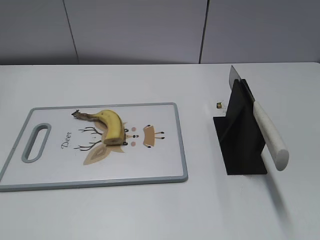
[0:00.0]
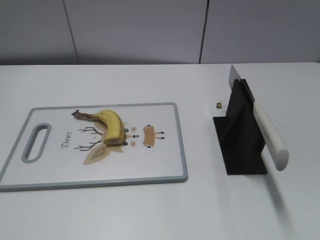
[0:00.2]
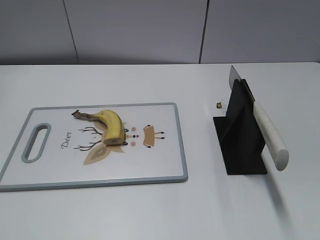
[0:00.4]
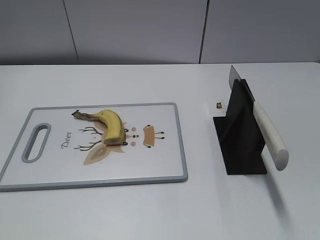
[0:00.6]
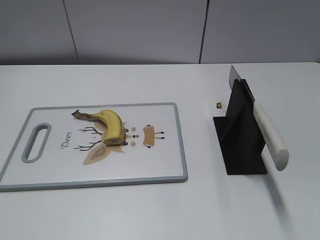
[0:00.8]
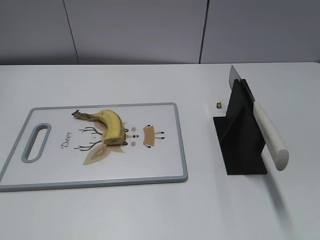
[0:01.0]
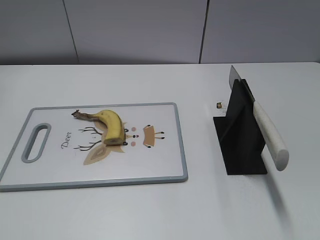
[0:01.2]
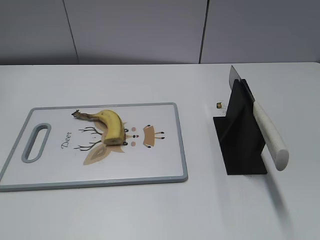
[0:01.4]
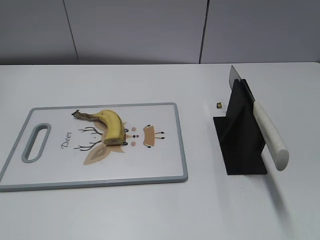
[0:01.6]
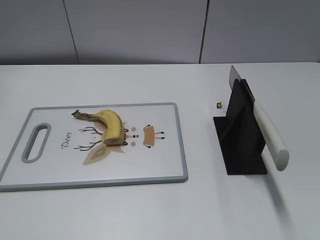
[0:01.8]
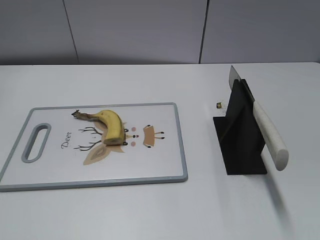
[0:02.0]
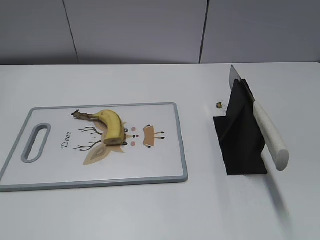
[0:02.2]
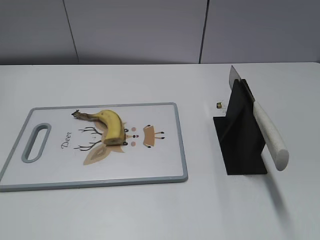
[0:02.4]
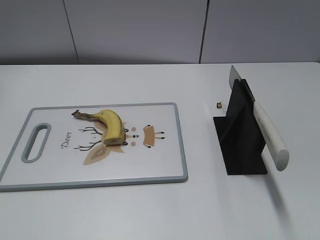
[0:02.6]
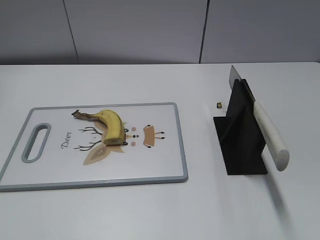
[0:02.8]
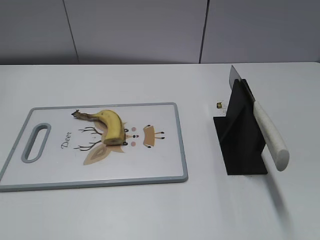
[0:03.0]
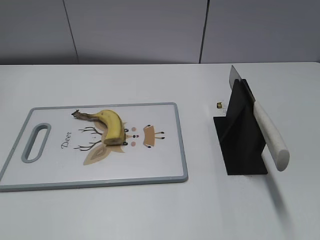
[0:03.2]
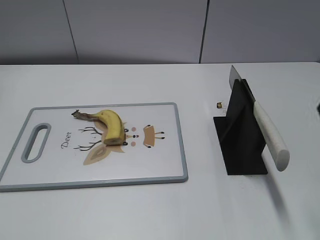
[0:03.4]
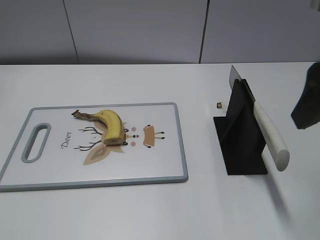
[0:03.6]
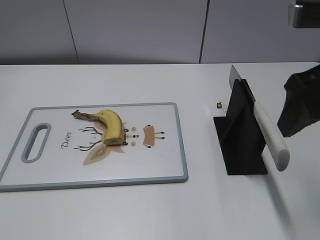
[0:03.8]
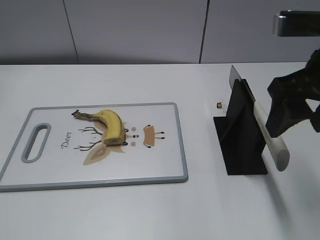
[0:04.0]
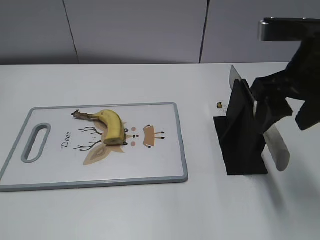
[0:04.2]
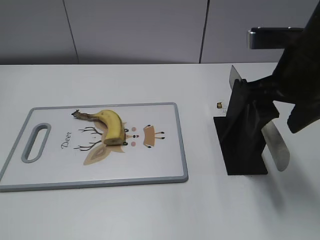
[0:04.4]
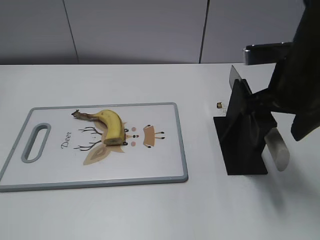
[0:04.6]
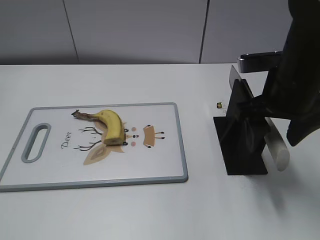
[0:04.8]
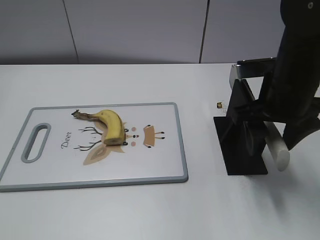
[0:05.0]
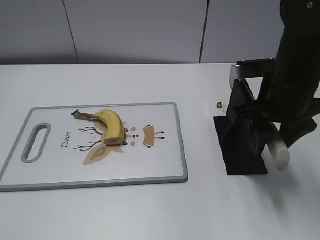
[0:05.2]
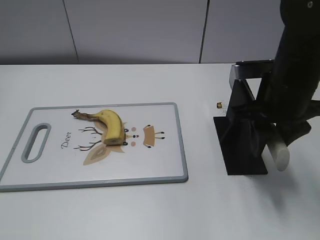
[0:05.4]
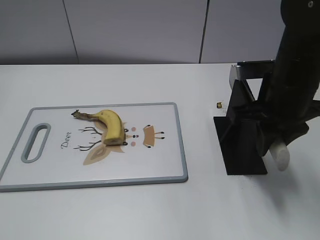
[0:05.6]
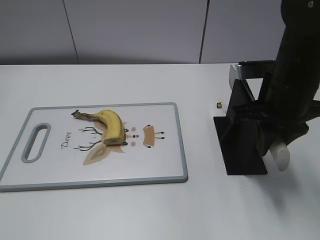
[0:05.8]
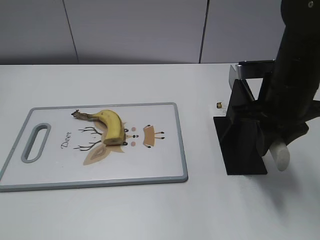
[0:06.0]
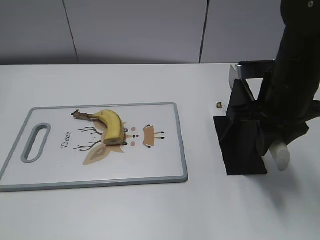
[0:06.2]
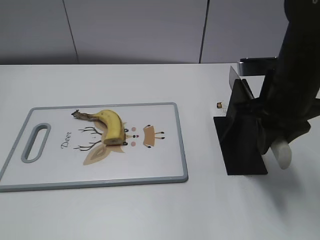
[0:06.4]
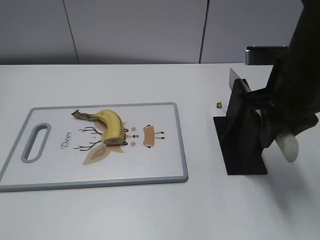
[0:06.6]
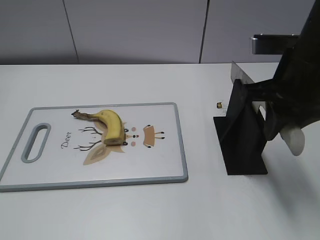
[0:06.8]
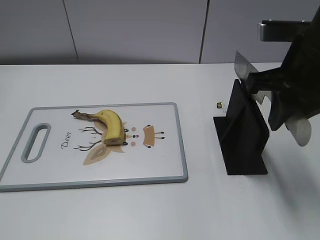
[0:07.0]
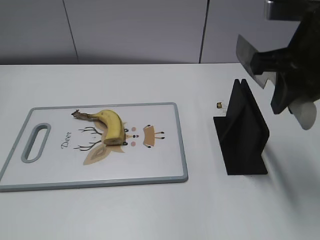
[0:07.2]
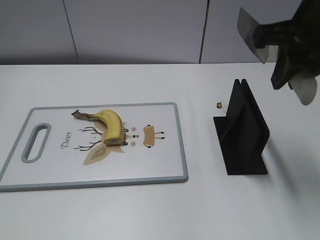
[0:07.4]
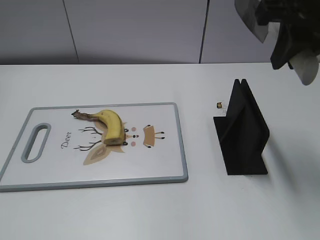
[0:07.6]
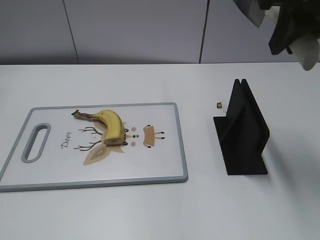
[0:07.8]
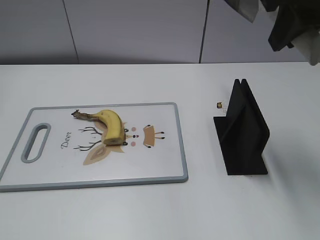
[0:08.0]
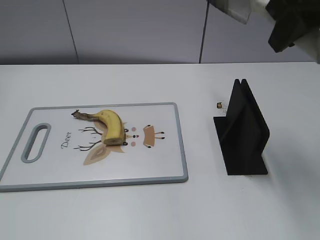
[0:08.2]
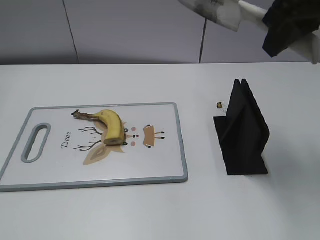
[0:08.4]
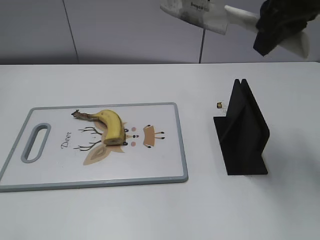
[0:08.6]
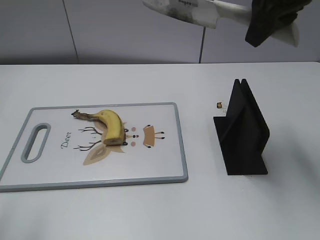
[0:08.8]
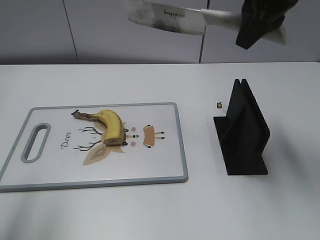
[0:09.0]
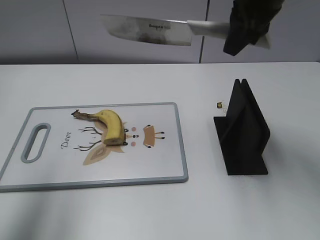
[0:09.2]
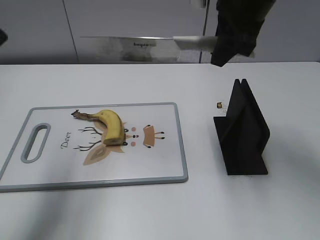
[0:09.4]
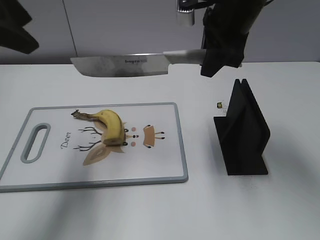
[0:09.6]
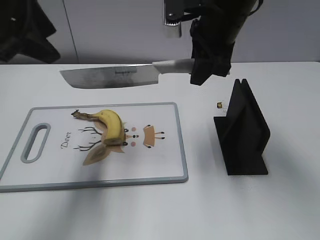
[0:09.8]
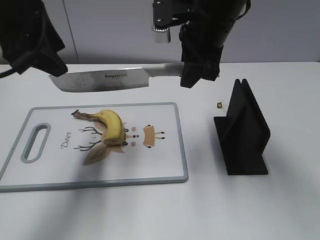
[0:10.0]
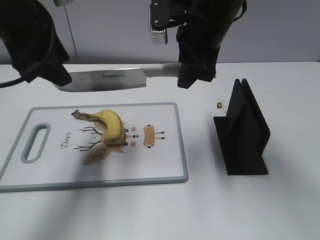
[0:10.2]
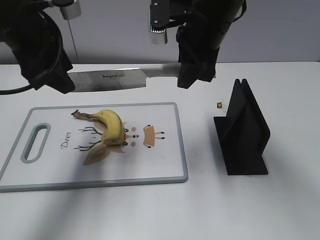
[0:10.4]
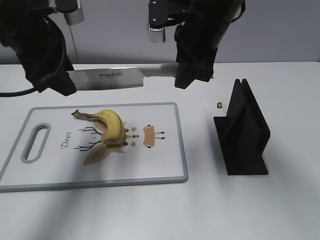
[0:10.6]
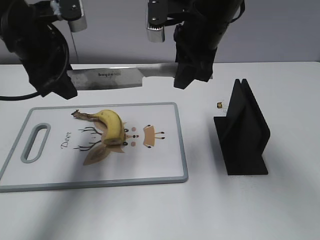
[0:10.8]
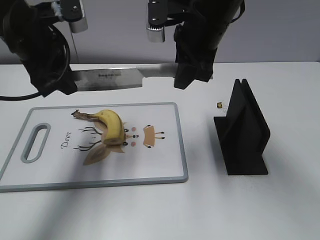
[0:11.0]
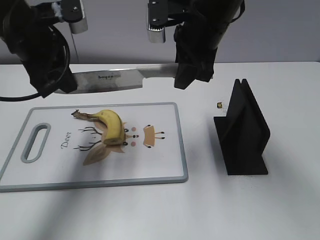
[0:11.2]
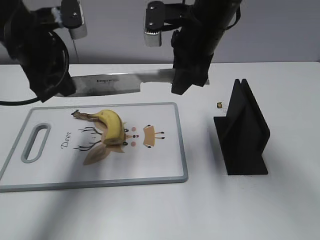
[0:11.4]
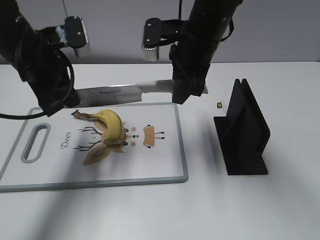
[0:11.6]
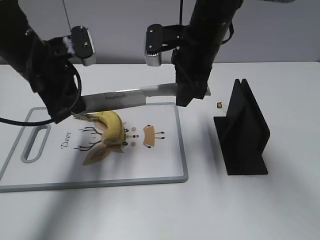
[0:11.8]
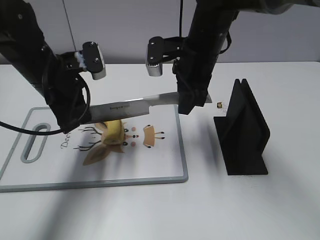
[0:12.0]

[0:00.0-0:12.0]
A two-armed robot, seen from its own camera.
Task of the whole recording: cut banana.
Step, 0:00.0 to 0:07.2: Grab the knife handle with your right hand.
0:03.0 to 0:04.4: The right gripper travels forward, to the left and downward by roughly 20 cm.
0:04.4 to 0:06.0: The right gripper ends up about 5 cm from where it was, and closes up.
0:06.0 to 0:07.6: The right gripper travels upward by some 15 cm.
0:07.6 to 0:09.0: The right gripper travels forward by some 5 cm. The left gripper moves forward and upward, approximately 20 cm.
0:09.0 to 0:10.4: The left gripper moves forward, to the right and downward, about 20 cm, while the right gripper heads downward and to the left, covering about 10 cm.
0:10.4 to 0:12.0: The right gripper moves downward, roughly 5 cm. The left gripper moves downward, about 10 cm, and closes.

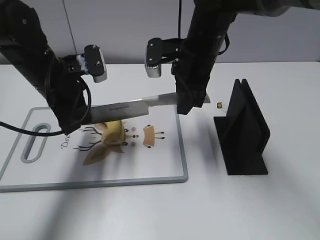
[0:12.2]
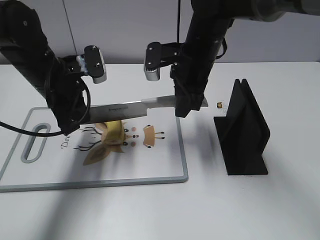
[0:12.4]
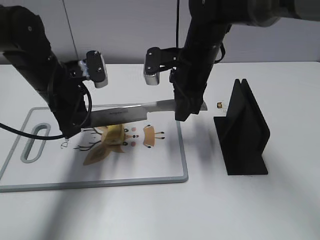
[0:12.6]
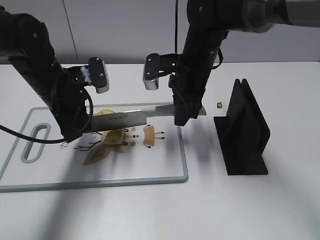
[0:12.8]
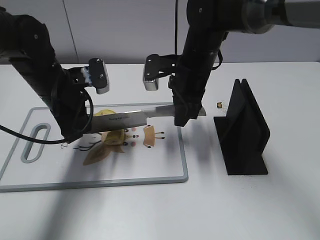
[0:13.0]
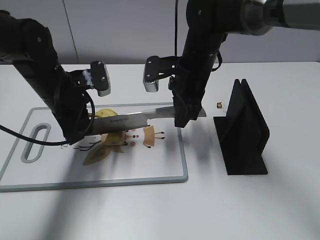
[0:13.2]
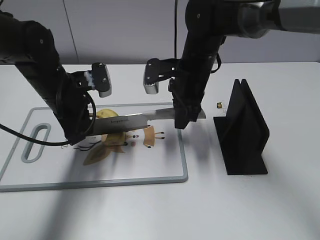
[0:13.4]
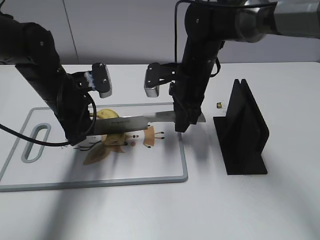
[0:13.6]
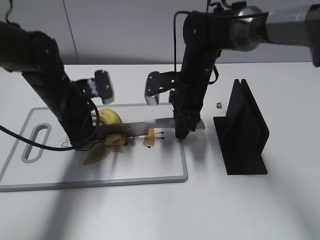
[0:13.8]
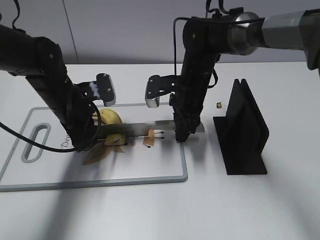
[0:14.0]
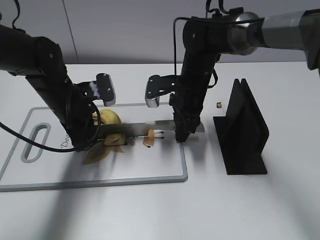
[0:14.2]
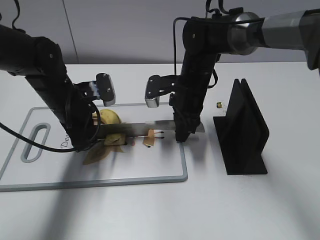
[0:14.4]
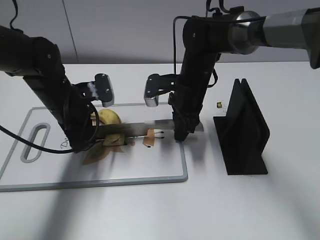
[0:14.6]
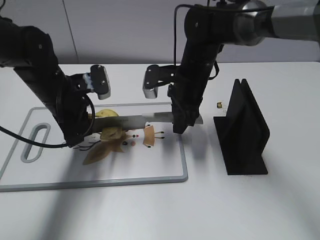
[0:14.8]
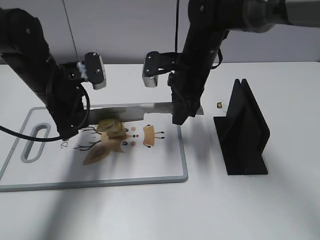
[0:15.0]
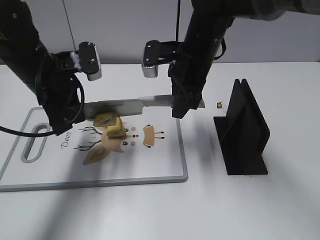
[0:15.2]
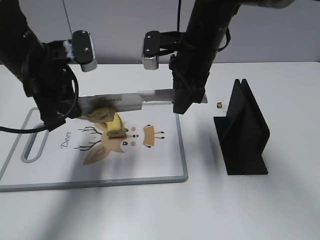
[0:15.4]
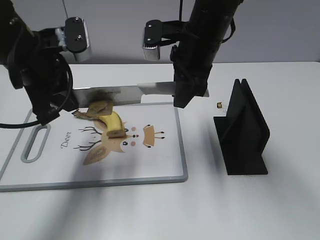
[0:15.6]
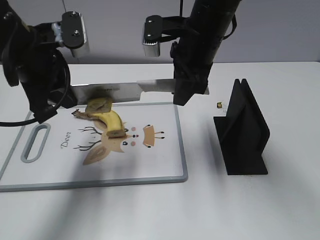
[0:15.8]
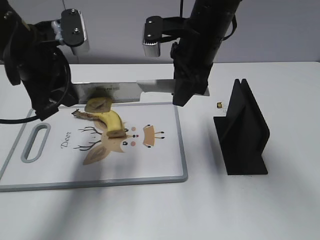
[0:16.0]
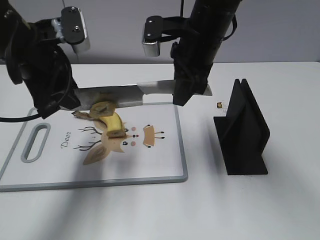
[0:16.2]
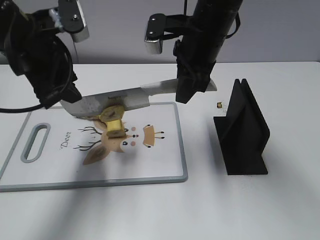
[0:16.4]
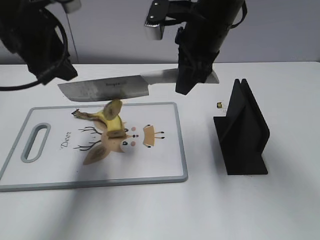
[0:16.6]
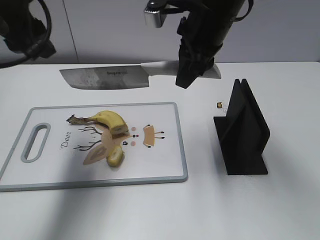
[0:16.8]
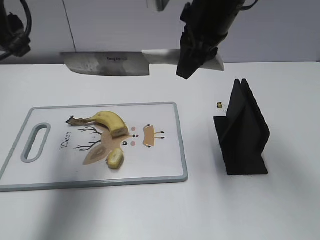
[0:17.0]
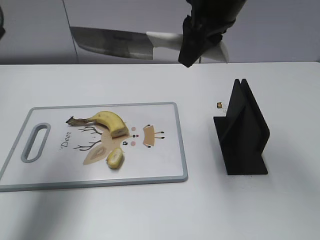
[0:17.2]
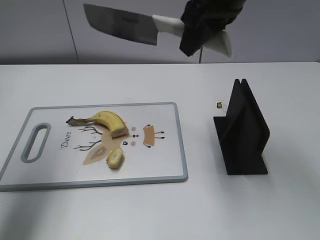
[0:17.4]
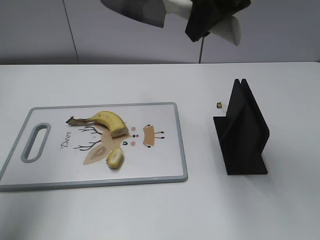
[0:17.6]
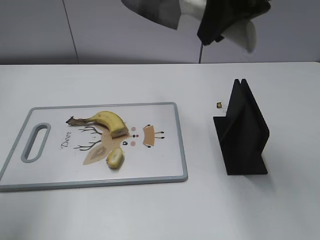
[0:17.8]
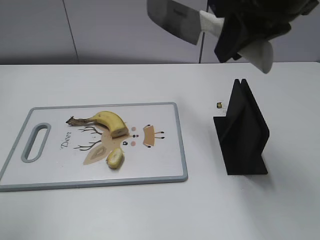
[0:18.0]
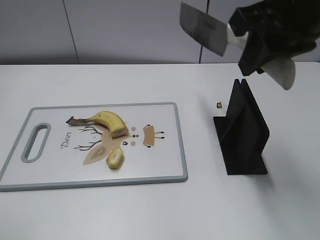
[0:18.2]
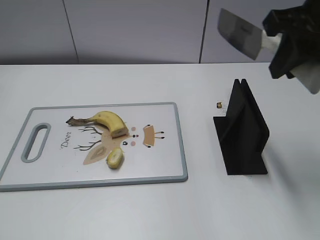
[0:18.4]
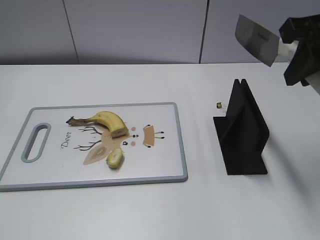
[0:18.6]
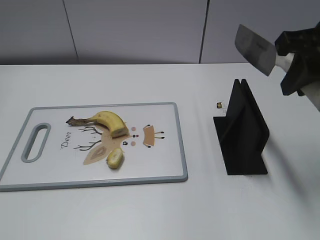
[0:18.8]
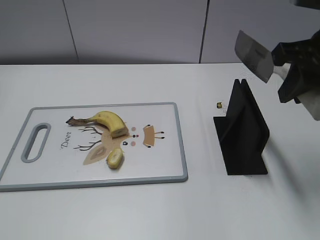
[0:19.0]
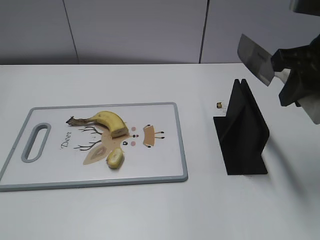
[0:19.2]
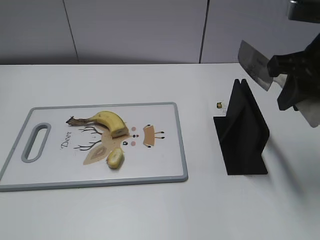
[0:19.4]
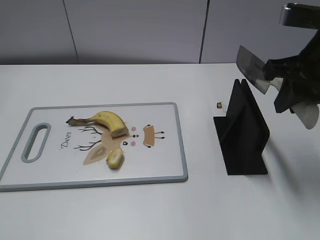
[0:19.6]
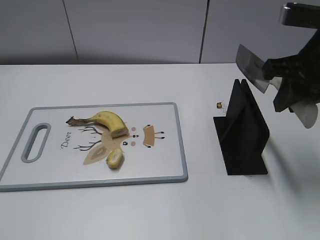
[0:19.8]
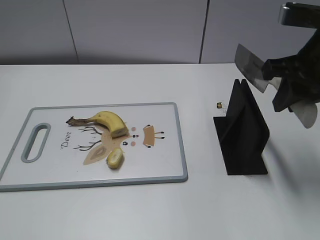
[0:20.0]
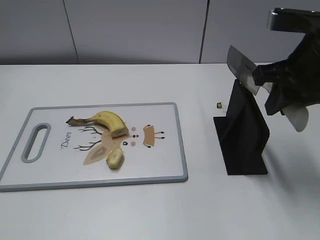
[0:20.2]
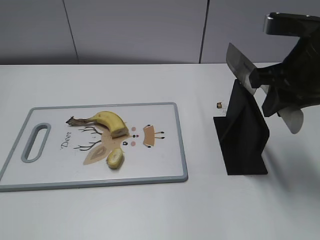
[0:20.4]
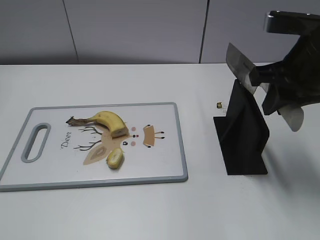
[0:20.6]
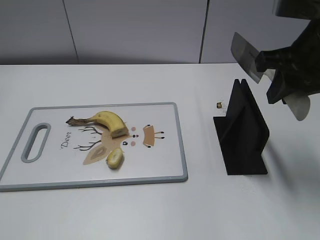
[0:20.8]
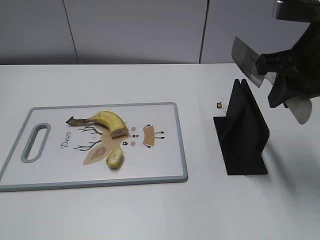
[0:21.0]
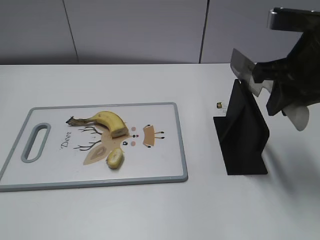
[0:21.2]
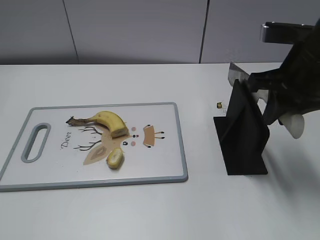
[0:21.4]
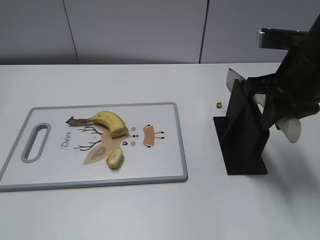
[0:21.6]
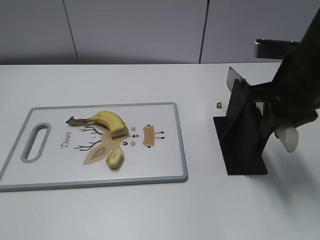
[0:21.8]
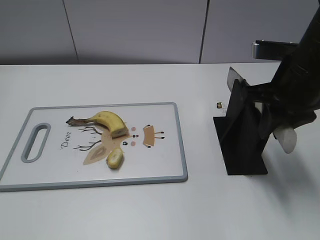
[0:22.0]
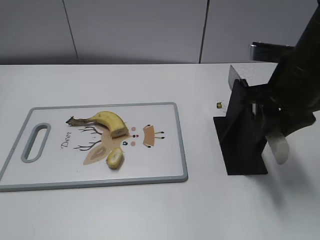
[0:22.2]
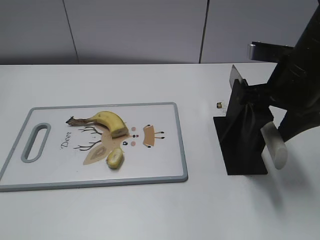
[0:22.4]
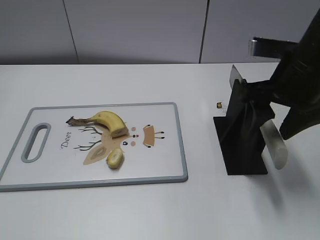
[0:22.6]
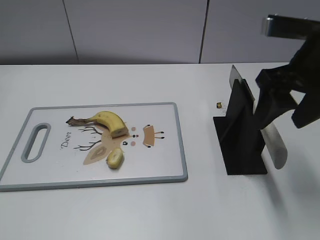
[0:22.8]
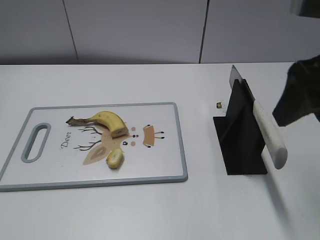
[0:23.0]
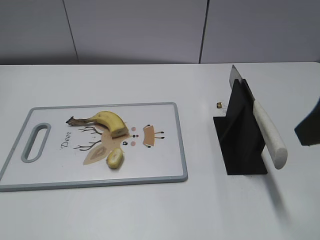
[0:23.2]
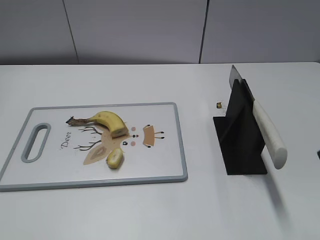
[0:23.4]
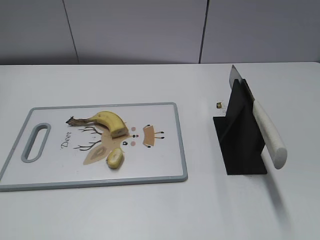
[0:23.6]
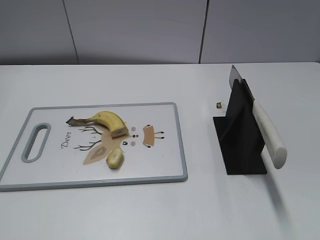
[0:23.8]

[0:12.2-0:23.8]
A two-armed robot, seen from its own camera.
Task of the whole recording: cut banana.
Step, 0:14.2 to 0:17.2: Cut the banana with your right hand.
Step, 0:17.6 to 0:19.8: Lift the knife with your right hand.
0:12.2 to 0:13.6: The right gripper is displaced downward by about 5 cm.
0:13.6 to 0:15.0: The grippers make only small movements.
0:15.0 to 0:16.6: Both grippers travel together upward, approximately 10 cm. The left gripper opens up.
0:16.6 to 0:18.0: The left gripper shifts roughly 20 cm backward, to the left and upward, while the right gripper is displaced upward, backward and to the right by about 15 cm.
0:18.0 to 0:19.4: The left gripper heads backward and downward, covering some 20 cm. Meanwhile the right gripper goes roughly 10 cm to the right and downward.
0:19.4 to 0:21.0: The grippers stay close to where they were, moving slightly.
0:21.0 to 0:22.4: The right gripper shifts by some 5 cm, and opens its fingers.
0:22.4 to 0:23.8: The right gripper moves backward, approximately 20 cm.
